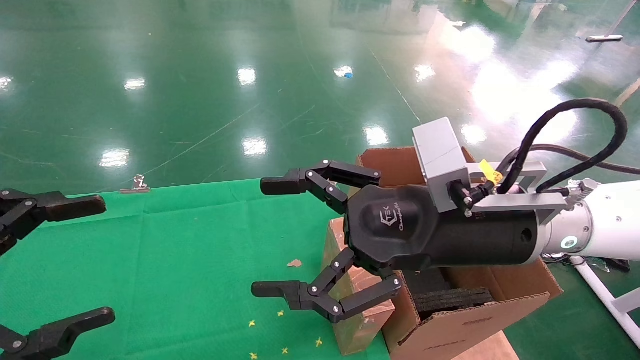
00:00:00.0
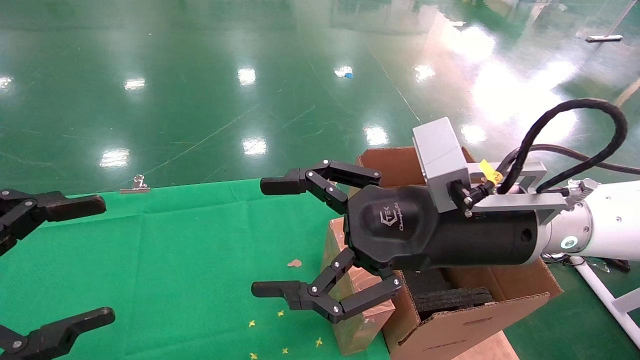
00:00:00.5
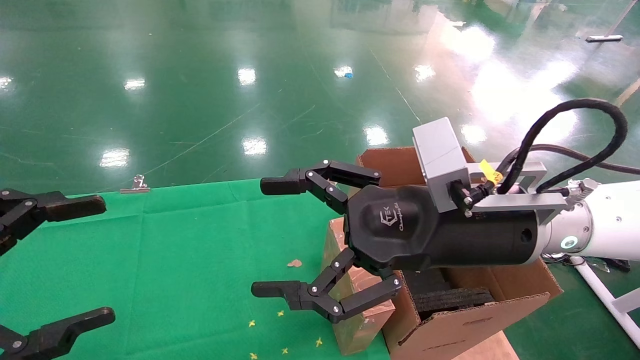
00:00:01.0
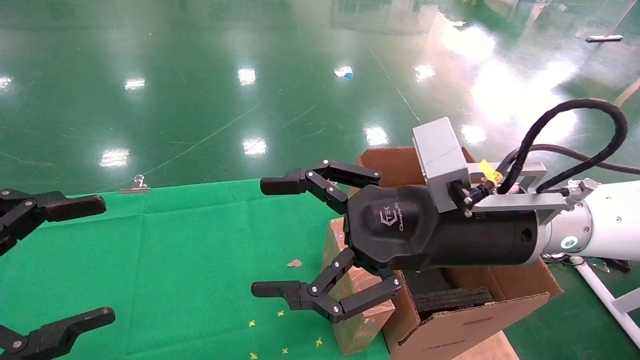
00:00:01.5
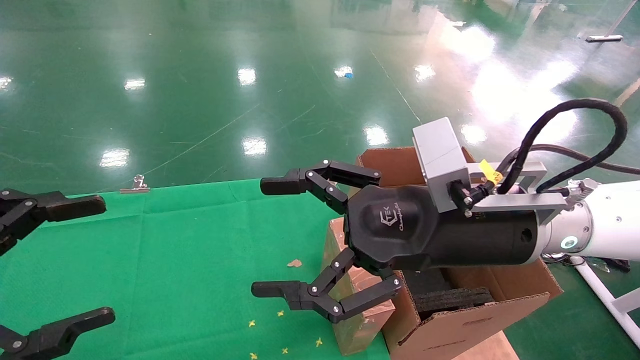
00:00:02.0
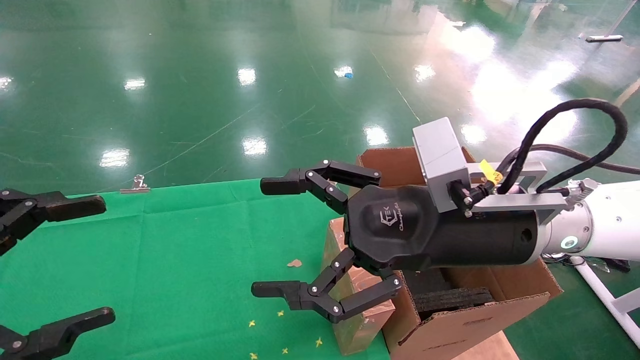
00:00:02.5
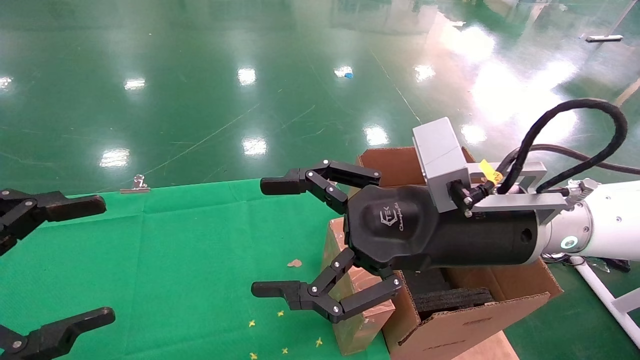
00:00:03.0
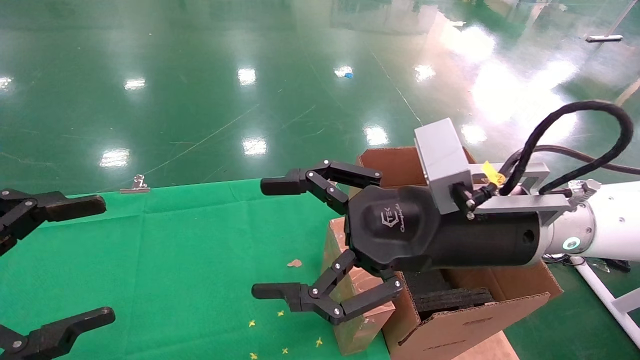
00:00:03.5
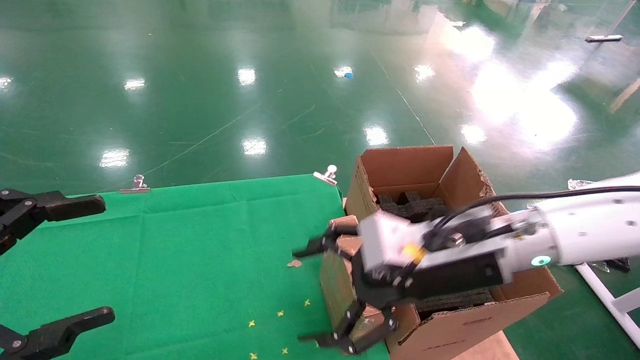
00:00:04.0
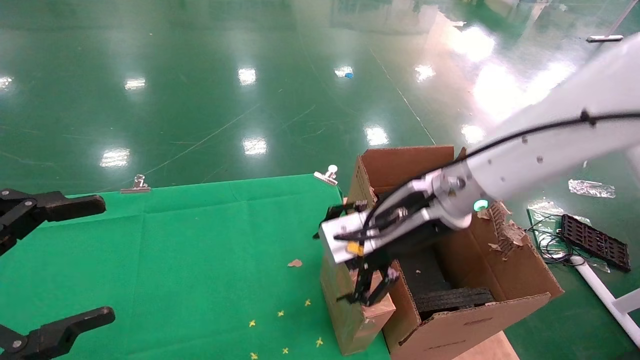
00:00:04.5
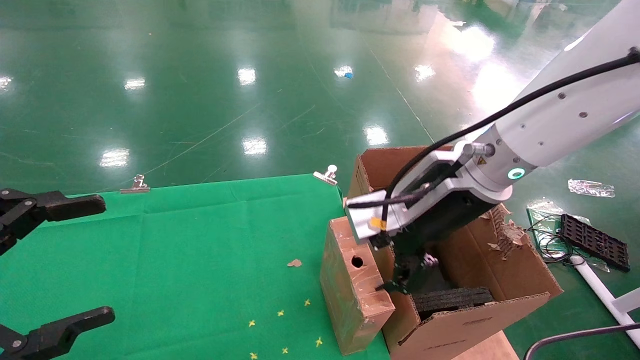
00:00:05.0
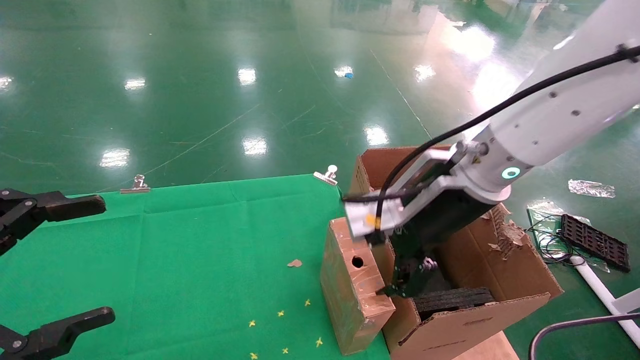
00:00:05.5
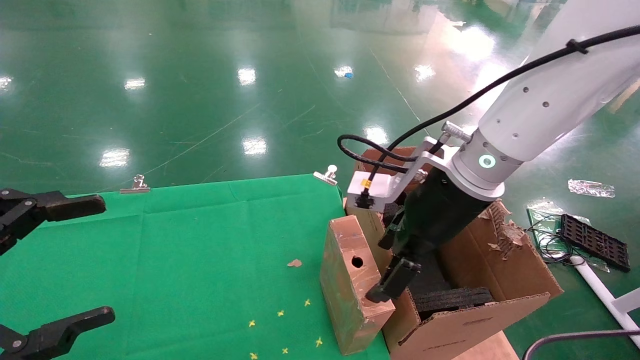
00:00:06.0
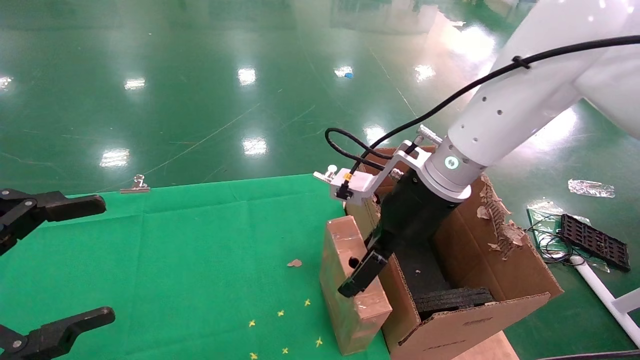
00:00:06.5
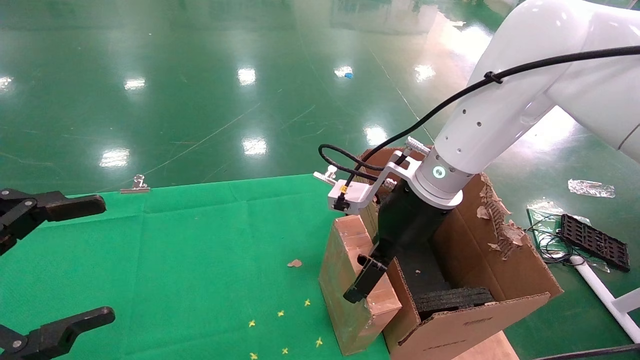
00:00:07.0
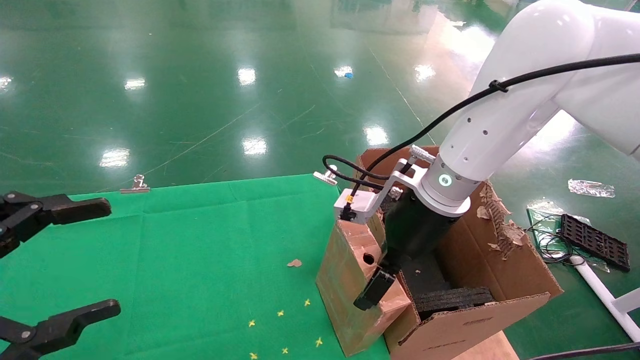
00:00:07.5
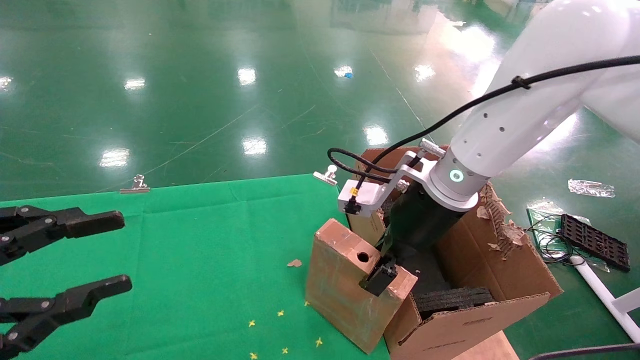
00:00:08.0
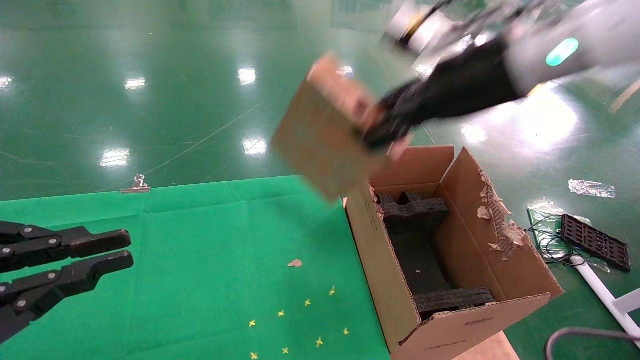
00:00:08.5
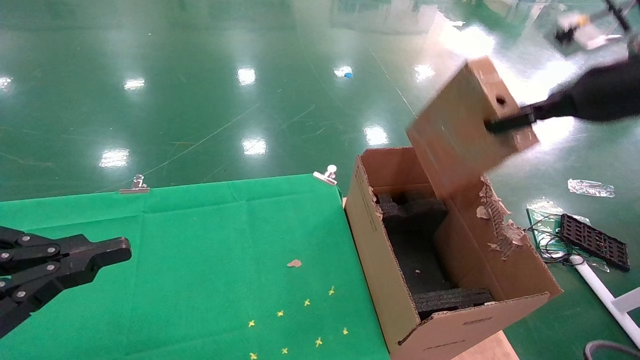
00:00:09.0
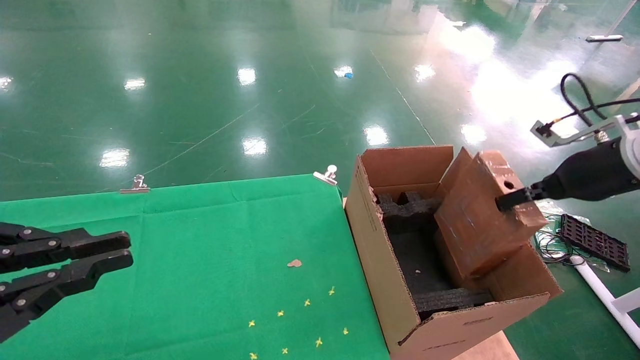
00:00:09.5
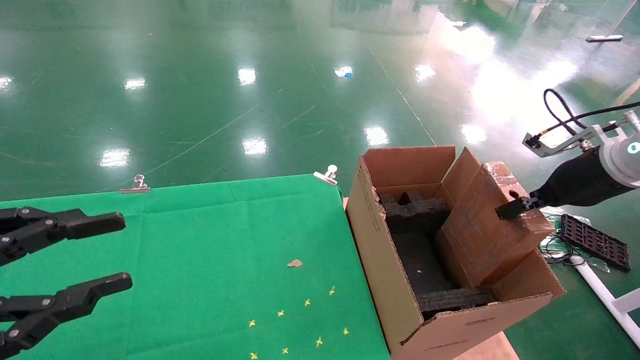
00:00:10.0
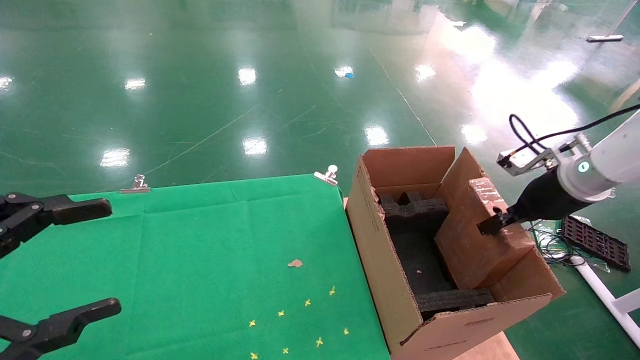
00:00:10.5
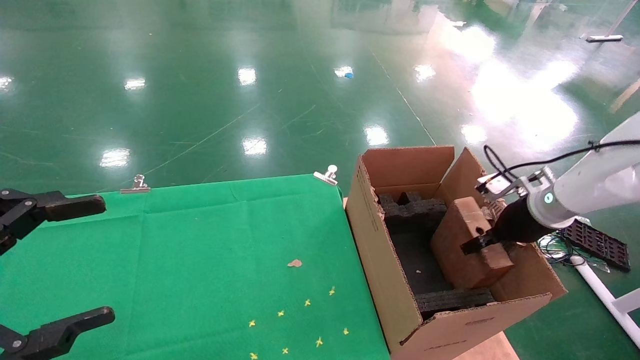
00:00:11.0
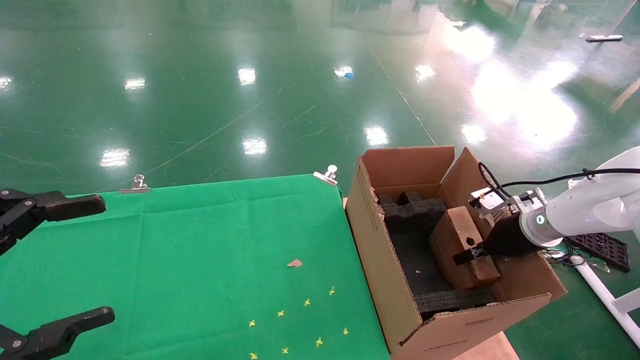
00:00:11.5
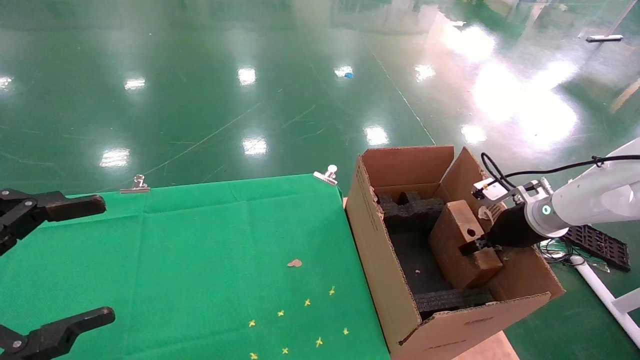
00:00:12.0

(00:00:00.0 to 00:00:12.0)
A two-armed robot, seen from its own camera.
Task of the whole recording: using a robotic arm to pick up a cardboard box and palace it the carton.
Step, 00:00:01.0 - 00:00:04.5: Pick up the mouse and the power cord paper box.
Step, 00:00:05.0 - 00:00:08.5: Place the mouse and the power cord paper box into the container.
00:00:00.0 - 00:00:02.0: Neither gripper changes place.
00:00:02.0 - 00:00:04.0: The right gripper moves roughly 5 cm.
00:00:04.0 - 00:00:06.0: The right gripper travels upward by some 5 cm.
00:00:06.0 - 00:00:08.0: The left gripper closes up; the right gripper closes its fingers.
00:00:08.0 - 00:00:10.0: The right gripper travels to the right by some 25 cm, and closes up.
00:00:10.0 - 00:00:12.0: The right gripper is displaced downward and forward by about 15 cm. Meanwhile the left gripper opens up.

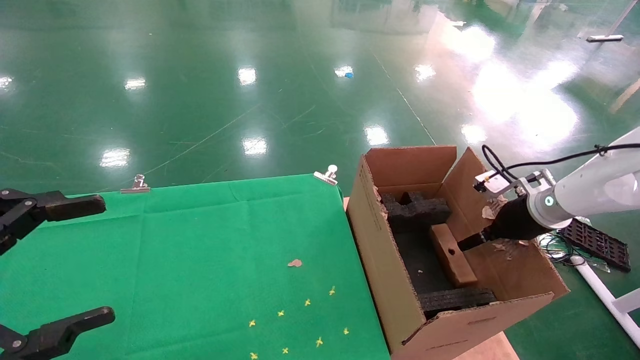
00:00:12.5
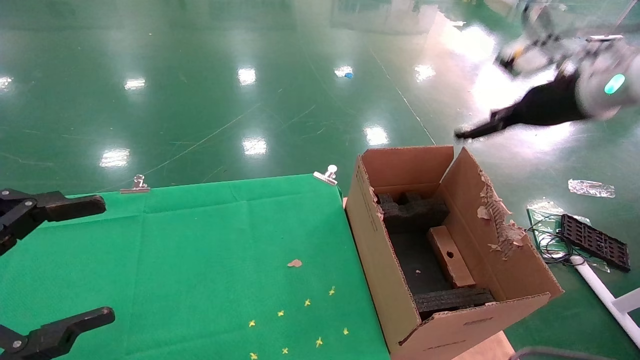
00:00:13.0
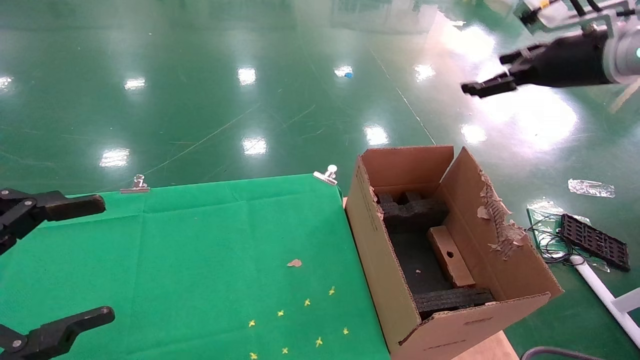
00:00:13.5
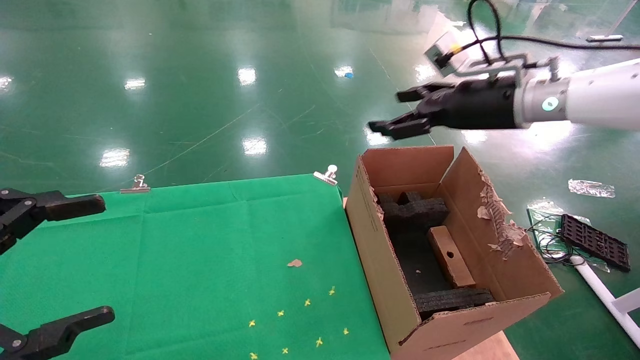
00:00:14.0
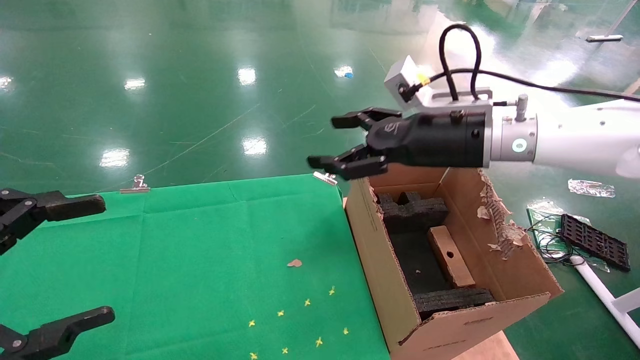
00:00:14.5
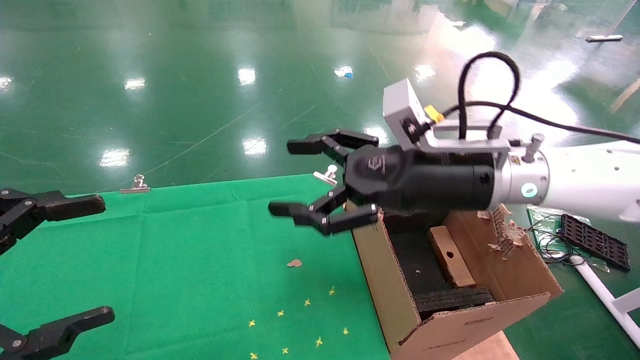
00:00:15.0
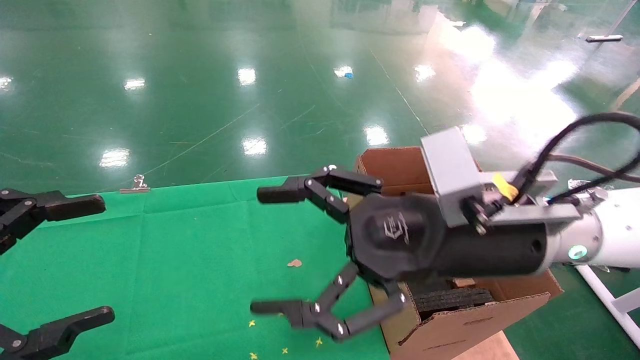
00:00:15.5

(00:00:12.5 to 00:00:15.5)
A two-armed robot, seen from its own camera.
Task of the whole recording: using a robotic arm to pick up a cardboard box and palace it the carton.
00:00:12.5 - 00:00:14.0: The right gripper heads upward and to the left, covering approximately 20 cm, and opens its fingers.
00:00:14.0 - 00:00:15.5: The right gripper travels backward, to the left and downward by about 20 cm.
